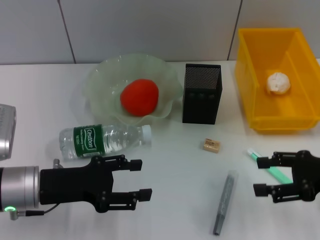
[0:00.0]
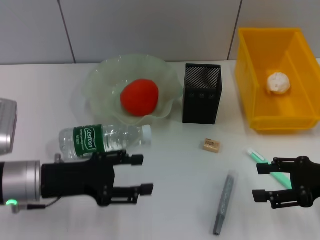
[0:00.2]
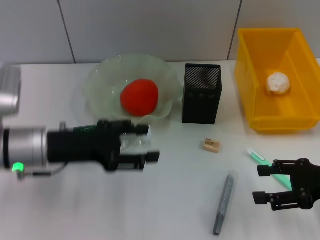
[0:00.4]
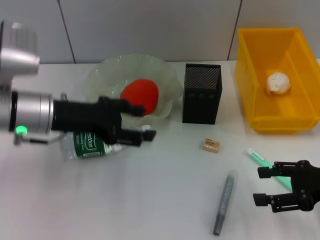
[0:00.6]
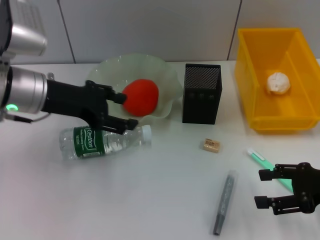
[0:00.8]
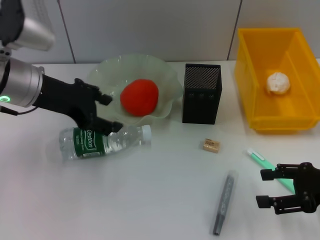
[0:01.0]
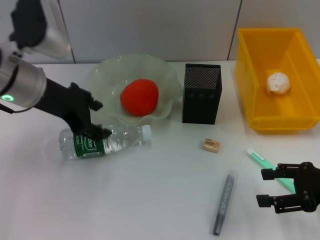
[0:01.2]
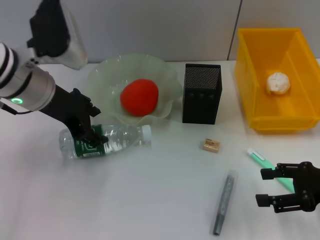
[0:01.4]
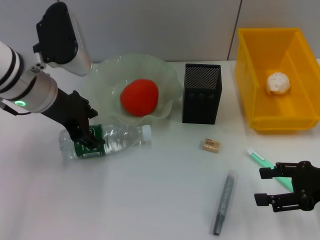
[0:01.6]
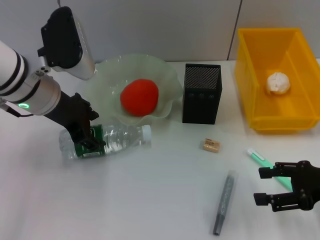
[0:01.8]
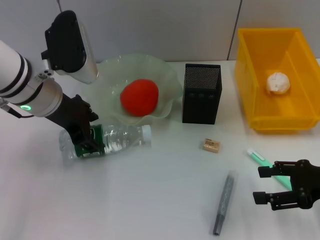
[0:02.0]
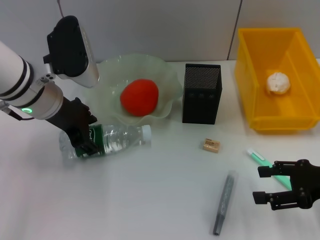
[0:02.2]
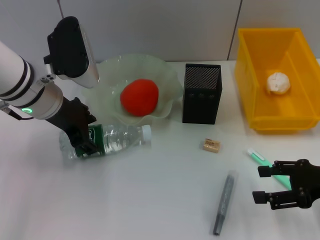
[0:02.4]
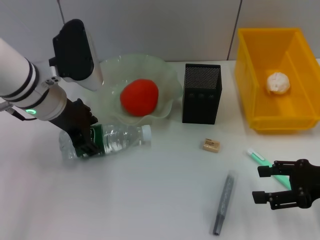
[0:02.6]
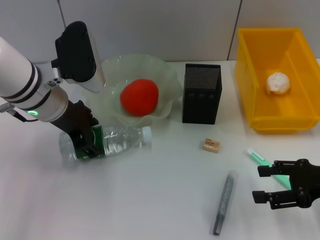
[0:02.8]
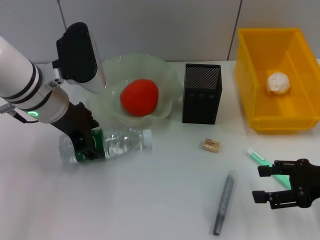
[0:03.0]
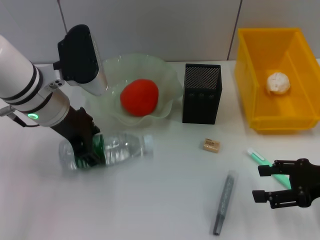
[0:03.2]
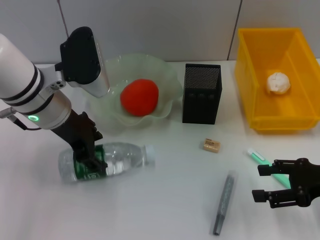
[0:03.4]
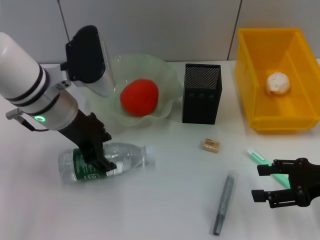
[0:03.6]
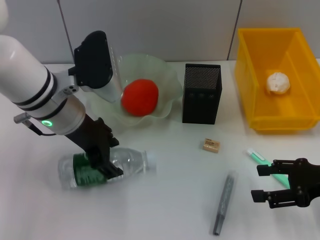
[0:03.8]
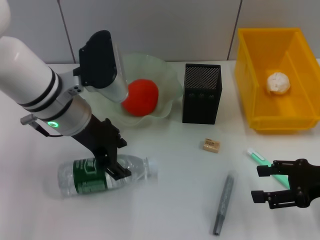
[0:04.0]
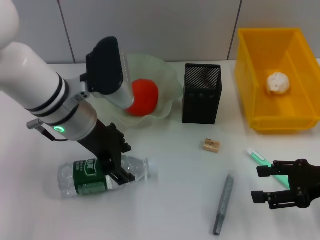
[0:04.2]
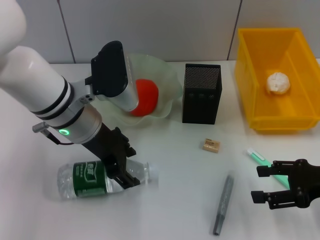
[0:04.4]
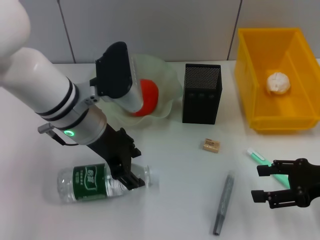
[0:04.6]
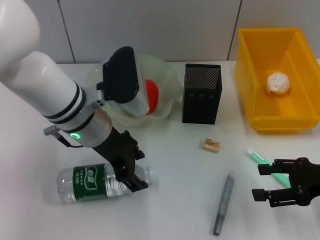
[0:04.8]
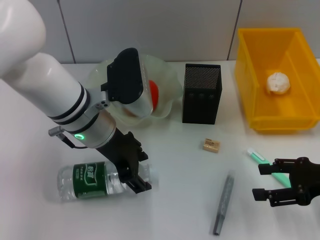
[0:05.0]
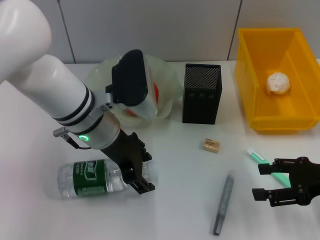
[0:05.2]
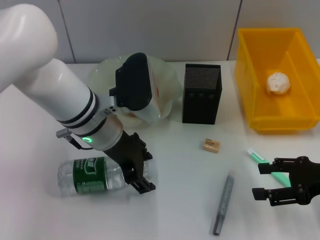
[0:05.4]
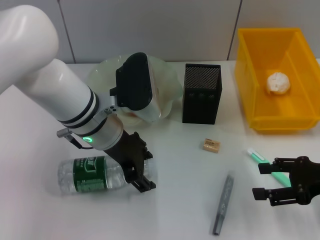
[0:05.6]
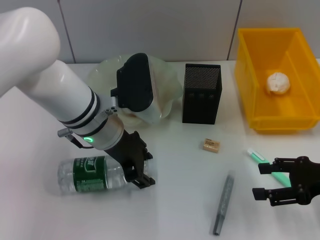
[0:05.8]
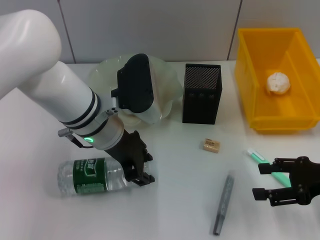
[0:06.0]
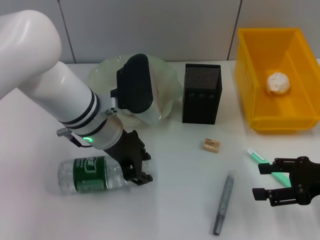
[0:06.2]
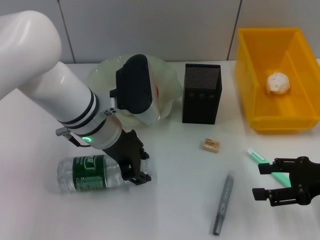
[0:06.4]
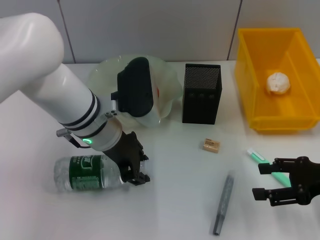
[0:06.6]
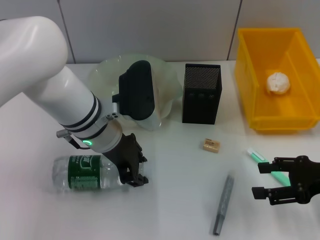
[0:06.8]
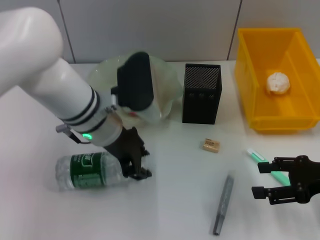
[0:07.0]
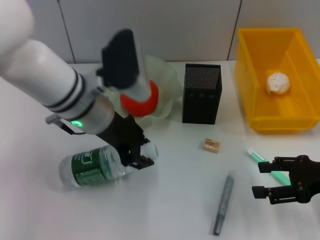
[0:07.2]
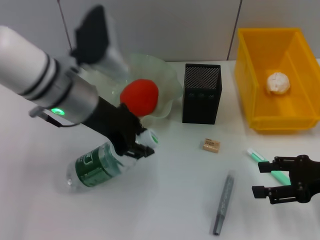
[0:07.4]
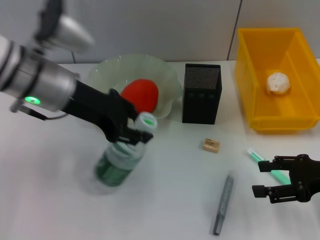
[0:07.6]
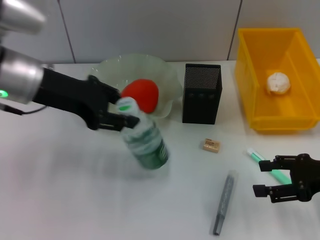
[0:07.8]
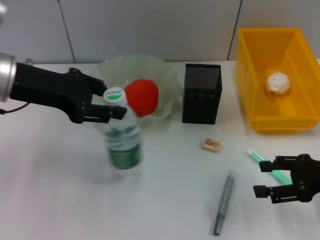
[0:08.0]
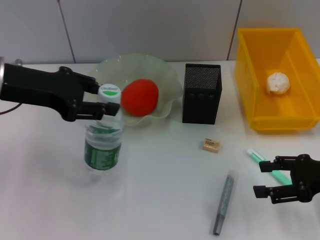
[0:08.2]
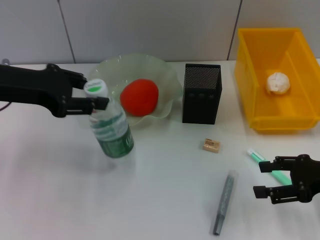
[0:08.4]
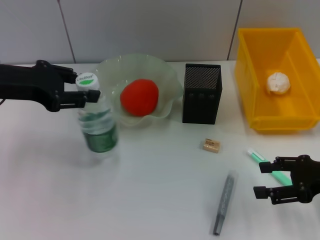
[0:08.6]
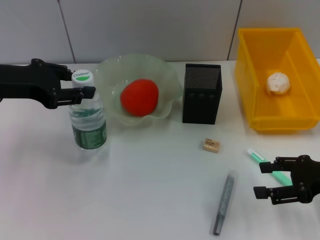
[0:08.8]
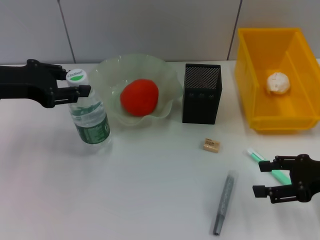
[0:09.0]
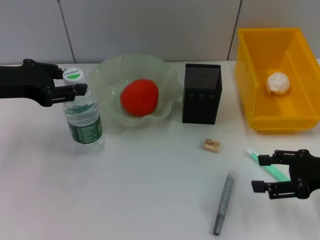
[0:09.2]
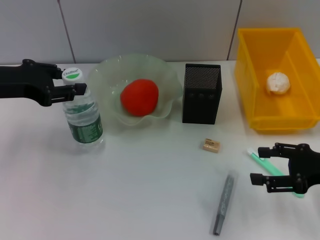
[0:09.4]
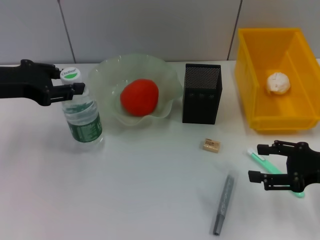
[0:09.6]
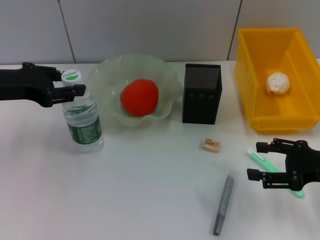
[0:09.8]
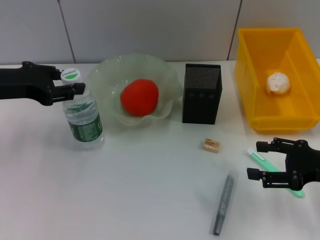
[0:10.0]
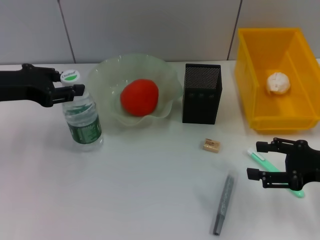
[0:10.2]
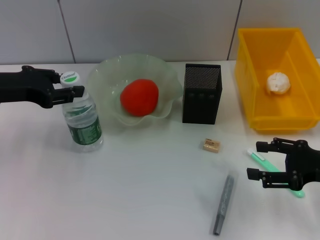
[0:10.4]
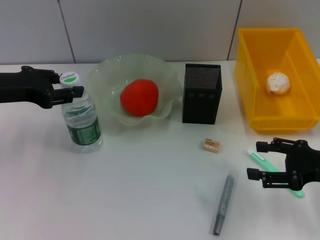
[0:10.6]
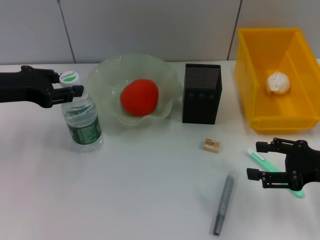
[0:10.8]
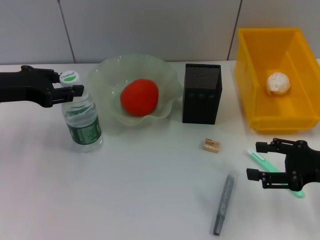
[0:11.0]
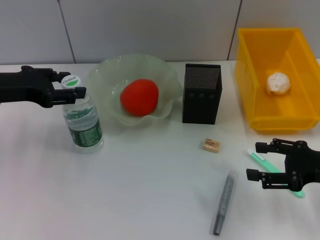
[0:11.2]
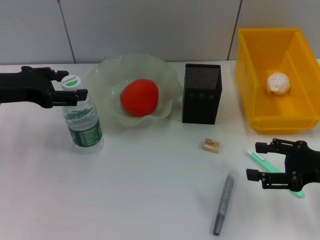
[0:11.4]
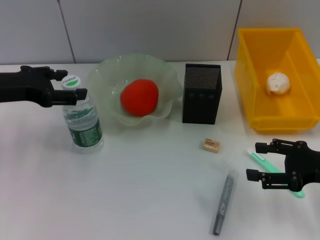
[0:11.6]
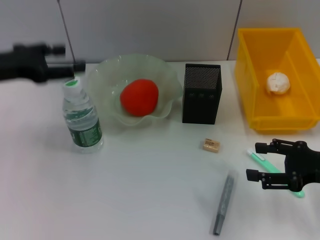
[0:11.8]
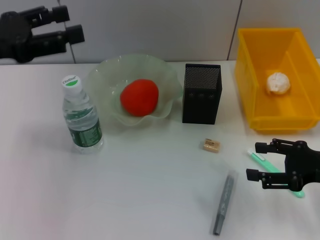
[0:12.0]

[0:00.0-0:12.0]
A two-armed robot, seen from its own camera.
Step, 0:00.0 to 0:06.8: Grab the water bottle with the left hand.
Step, 0:07.0 to 0:11.2: Place the water bottle on the table with the left hand.
0:00.0 to 0:01.6: The left gripper heads upward and forward, covering approximately 15 cm.
0:01.6 to 0:03.0: There are only small adjustments of the grippers.
0:03.0 to 0:04.4: The grippers move only a little.
0:04.4 to 0:06.0: The grippers make only small movements.
0:06.0 to 0:07.6: The left gripper is displaced to the left and upward by roughly 10 cm.
0:07.6 to 0:09.0: The left gripper is displaced to the left by roughly 10 cm.
0:09.0 to 0:10.4: The grippers make only small movements.
0:10.4 to 0:12.0: The left gripper is displaced upward by roughly 5 cm, and opens its fingers.

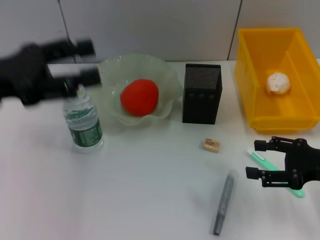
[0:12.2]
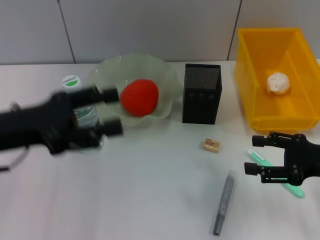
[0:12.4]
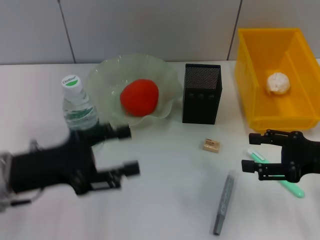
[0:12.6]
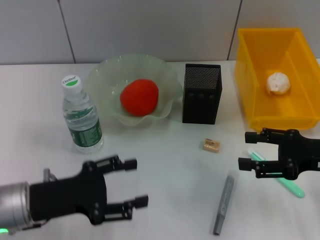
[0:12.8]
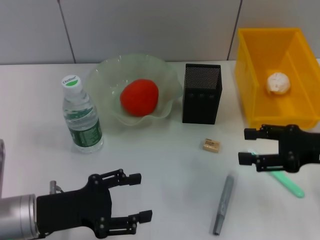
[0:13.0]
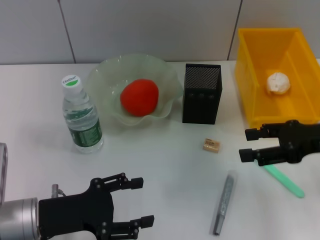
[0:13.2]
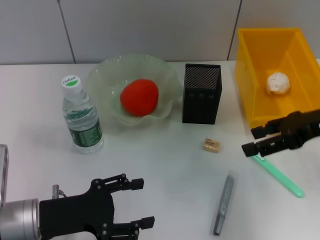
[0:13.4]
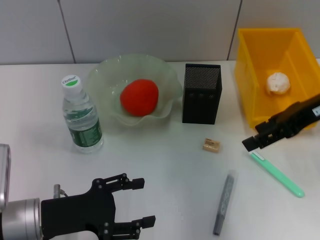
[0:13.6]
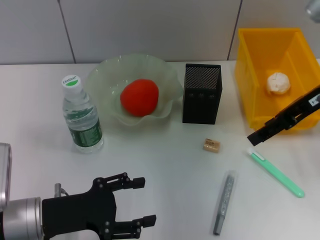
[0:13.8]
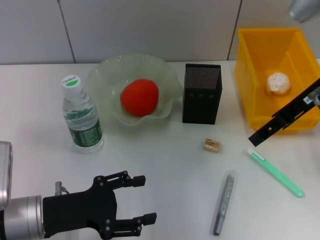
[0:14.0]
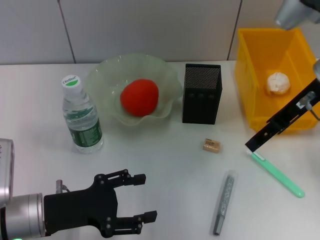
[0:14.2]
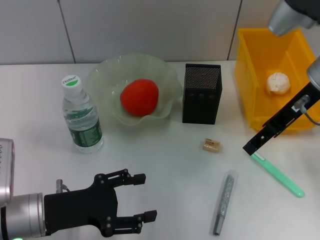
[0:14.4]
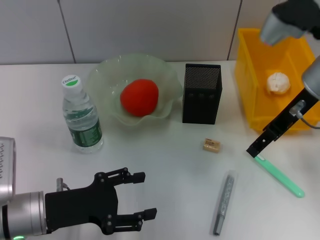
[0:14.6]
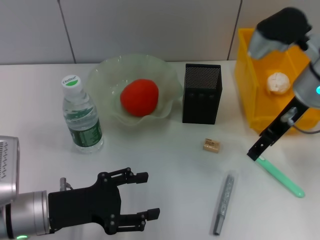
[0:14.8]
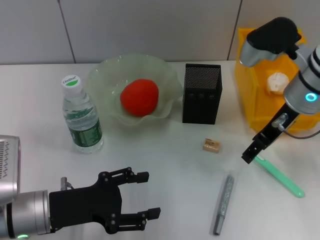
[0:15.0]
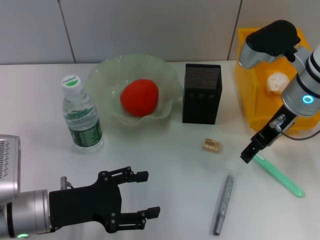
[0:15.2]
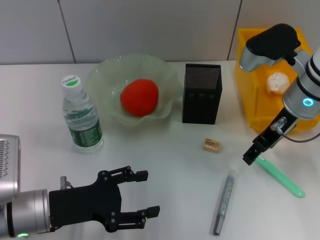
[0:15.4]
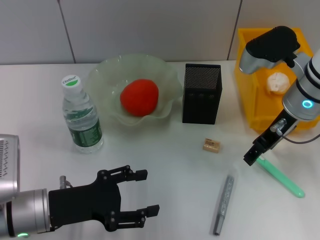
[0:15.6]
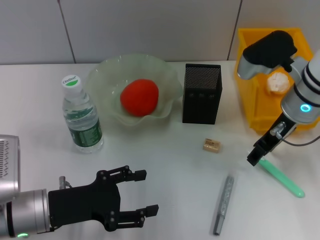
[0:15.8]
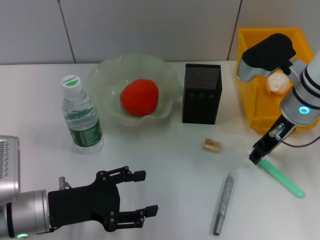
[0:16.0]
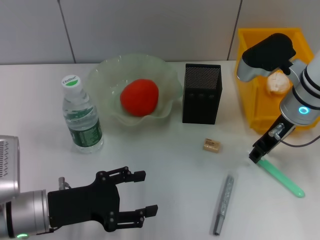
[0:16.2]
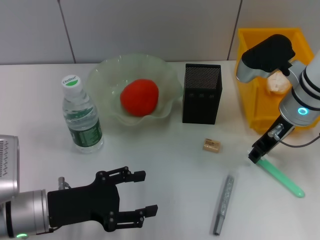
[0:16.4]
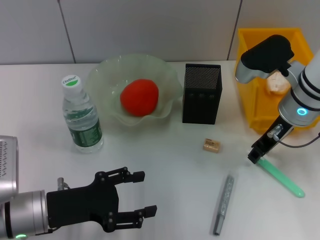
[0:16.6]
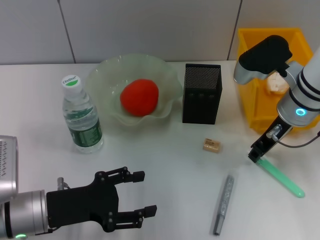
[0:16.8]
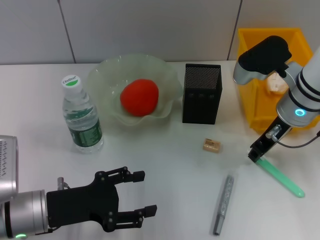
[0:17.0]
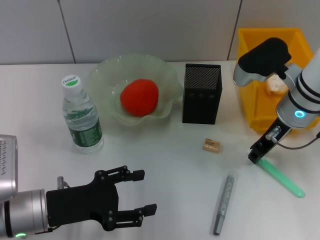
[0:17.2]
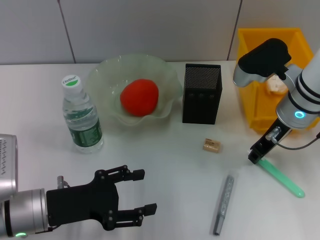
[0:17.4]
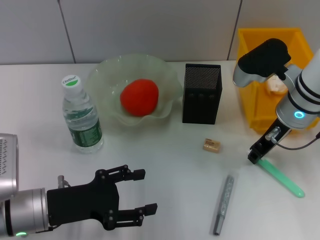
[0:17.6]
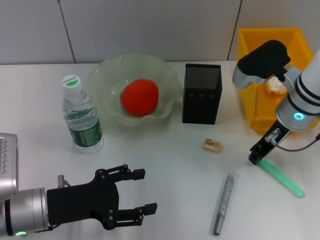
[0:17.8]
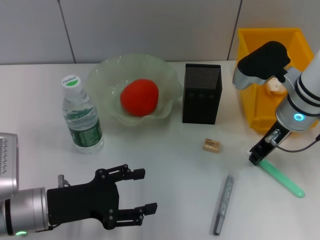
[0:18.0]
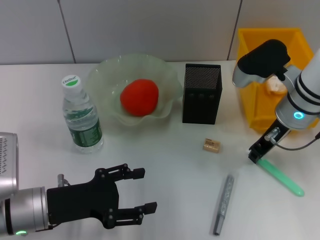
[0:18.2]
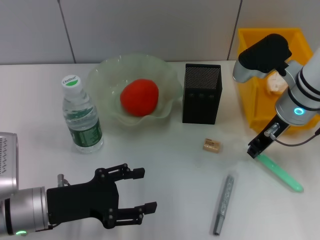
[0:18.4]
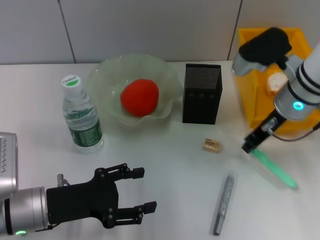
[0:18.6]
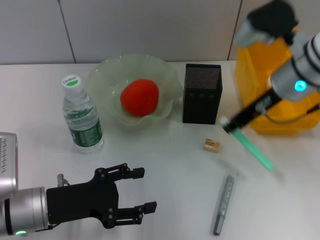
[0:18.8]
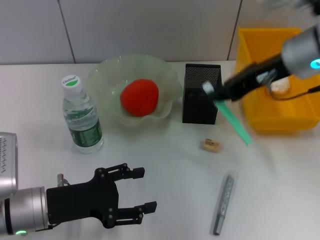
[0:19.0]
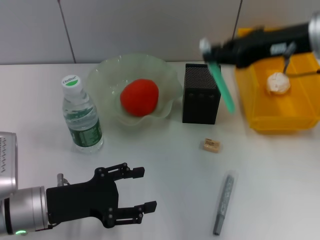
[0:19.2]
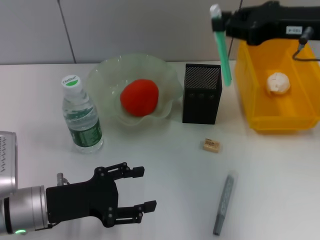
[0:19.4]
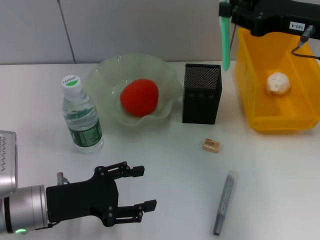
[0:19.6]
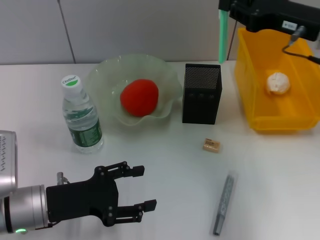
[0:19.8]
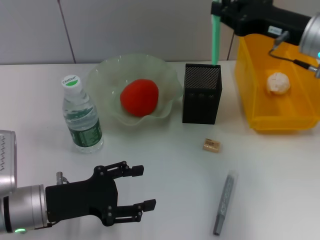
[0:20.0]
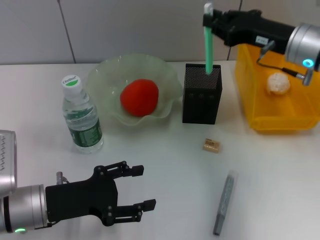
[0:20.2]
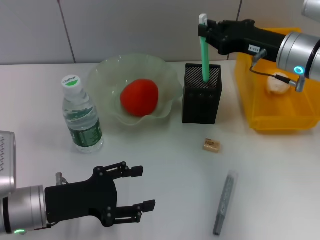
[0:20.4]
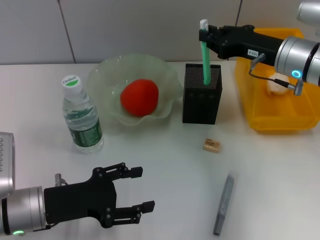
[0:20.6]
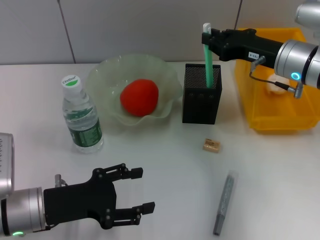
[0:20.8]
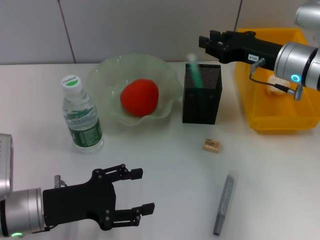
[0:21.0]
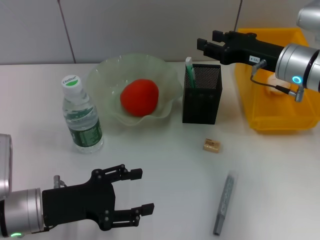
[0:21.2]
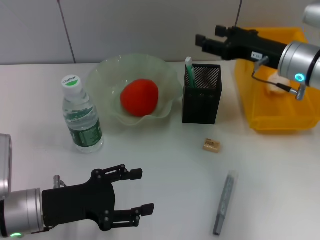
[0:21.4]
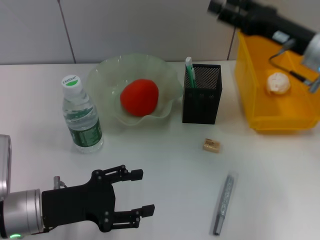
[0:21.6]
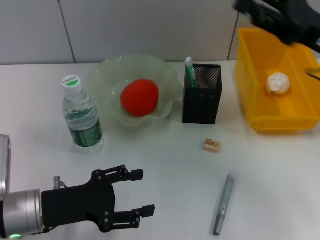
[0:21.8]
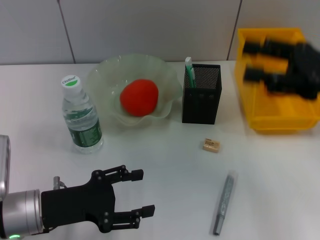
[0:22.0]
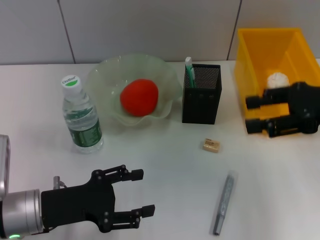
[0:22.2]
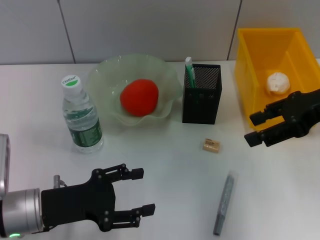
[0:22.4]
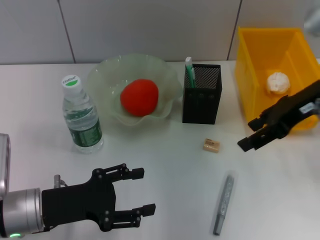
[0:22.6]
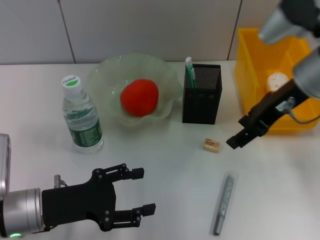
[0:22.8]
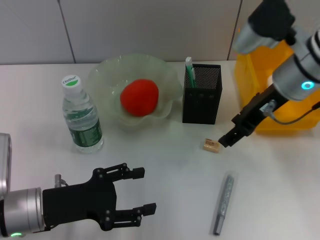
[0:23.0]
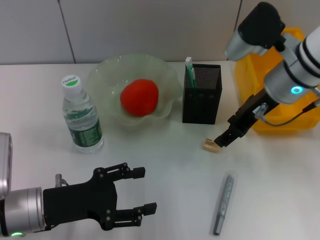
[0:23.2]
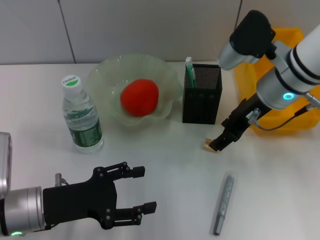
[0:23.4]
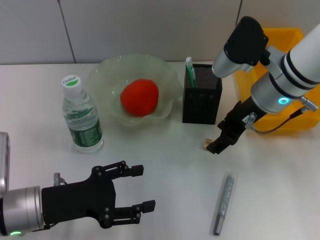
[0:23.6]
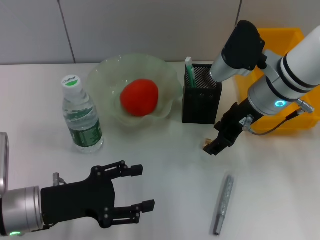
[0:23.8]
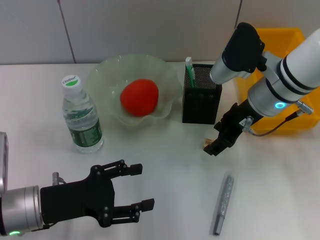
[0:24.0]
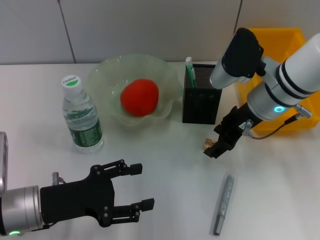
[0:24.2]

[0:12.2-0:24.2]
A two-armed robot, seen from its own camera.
Step, 0:12.2 to 0:18.0: Grab the blue utility knife with the right hand.
Step, 0:18.2 to 0:20.8: Place the blue utility knife into the pen holder with the right hand.
0:12.2 to 0:13.8: The left gripper heads downward and backward, covering about 20 cm. The right gripper goes approximately 20 cm upward, forward and to the left.
0:13.8 to 0:15.2: The right gripper moves downward and to the left, some 10 cm.
0:15.2 to 0:16.6: The right gripper closes its fingers.
0:16.6 to 0:18.2: Both grippers stay put.
0:18.2 to 0:19.8: The right gripper is displaced upward and to the right by approximately 10 cm.
0:19.8 to 0:21.2: The right gripper shifts approximately 5 cm downward.
0:21.2 to 0:22.6: The right gripper goes approximately 10 cm upward, and opens.
0:22.6 to 0:24.2: The right gripper goes roughly 10 cm to the left and downward.
